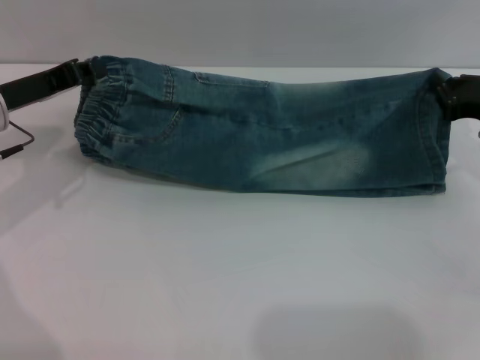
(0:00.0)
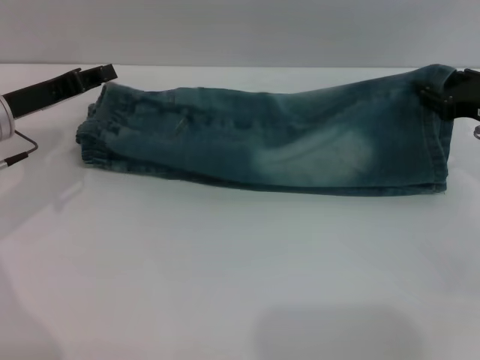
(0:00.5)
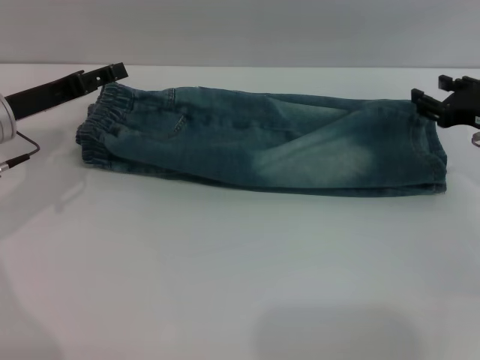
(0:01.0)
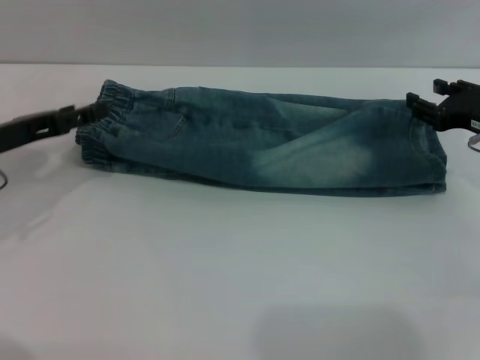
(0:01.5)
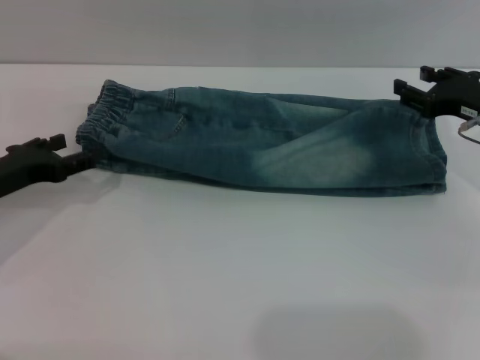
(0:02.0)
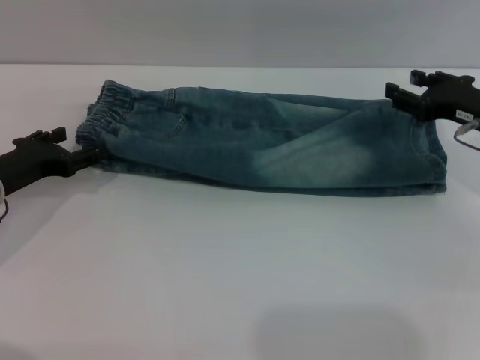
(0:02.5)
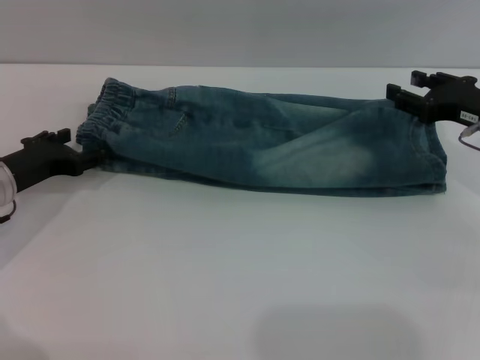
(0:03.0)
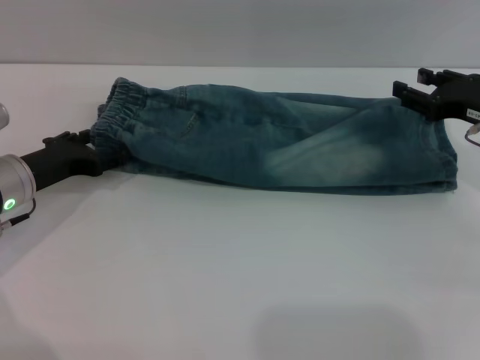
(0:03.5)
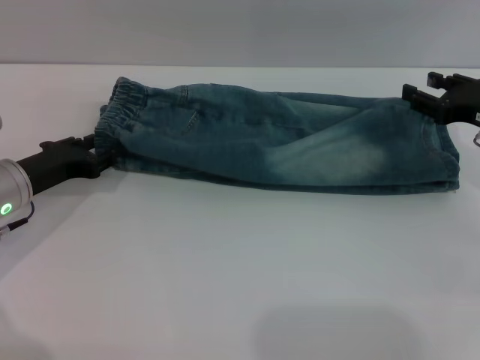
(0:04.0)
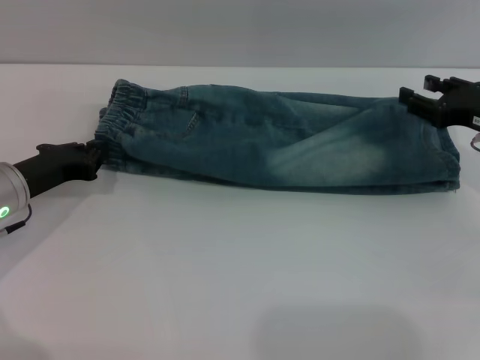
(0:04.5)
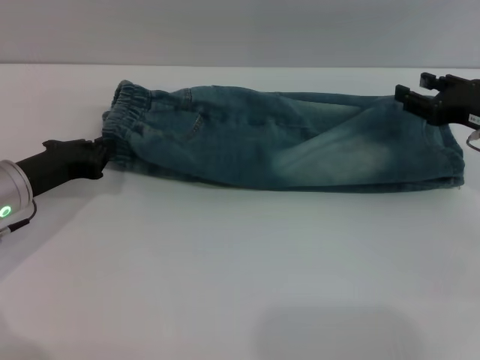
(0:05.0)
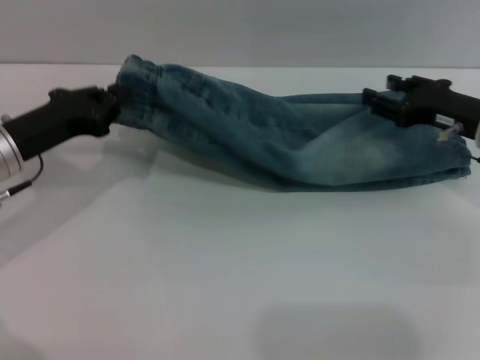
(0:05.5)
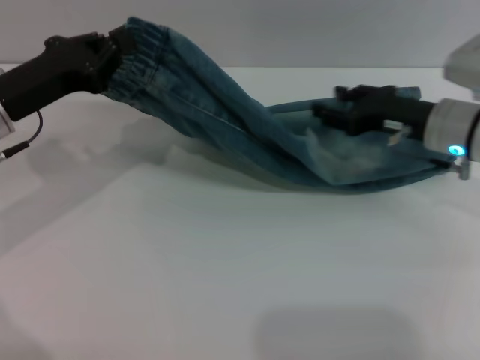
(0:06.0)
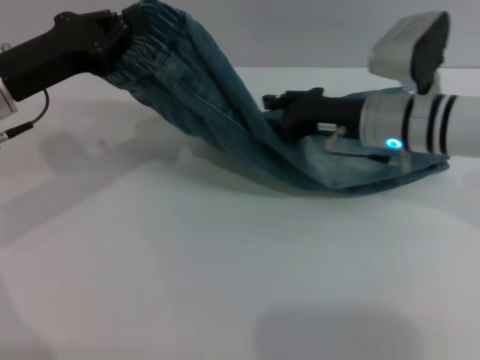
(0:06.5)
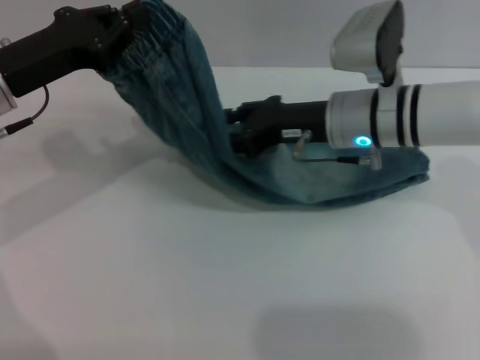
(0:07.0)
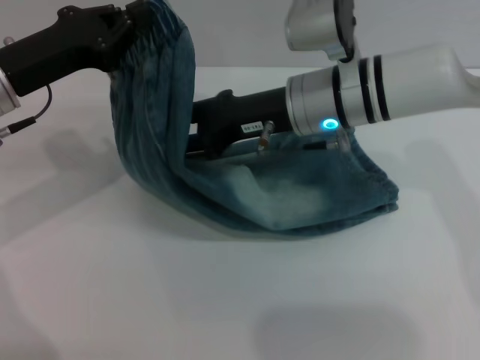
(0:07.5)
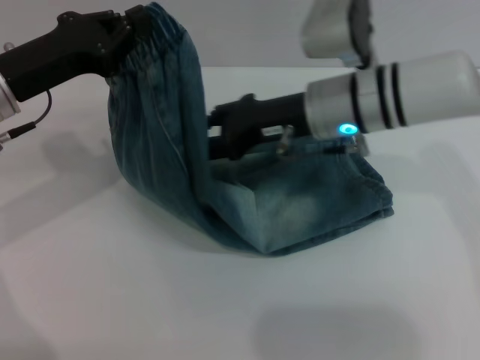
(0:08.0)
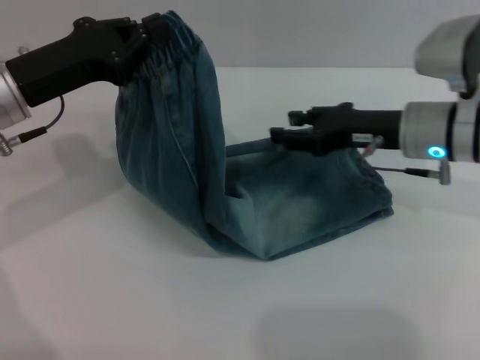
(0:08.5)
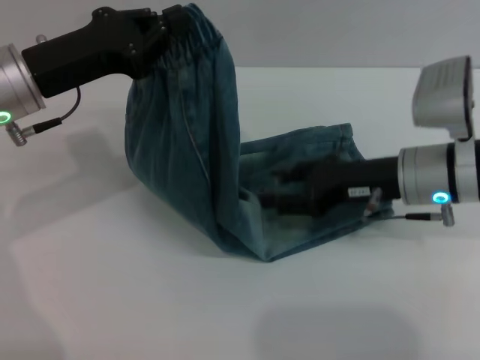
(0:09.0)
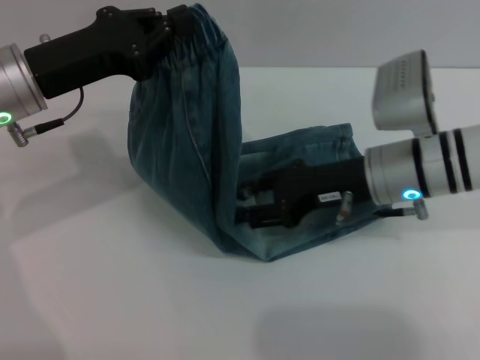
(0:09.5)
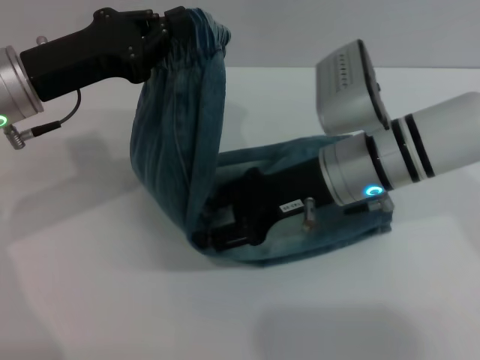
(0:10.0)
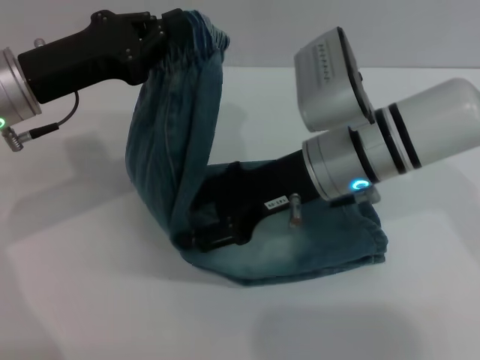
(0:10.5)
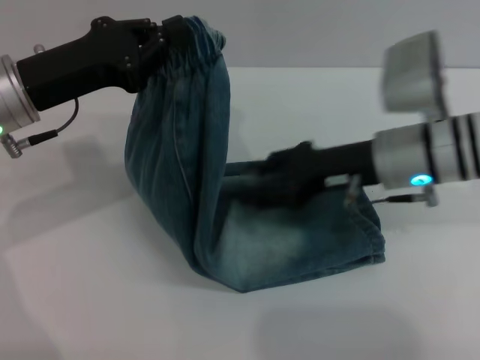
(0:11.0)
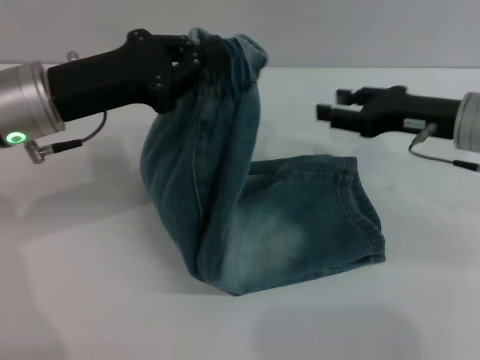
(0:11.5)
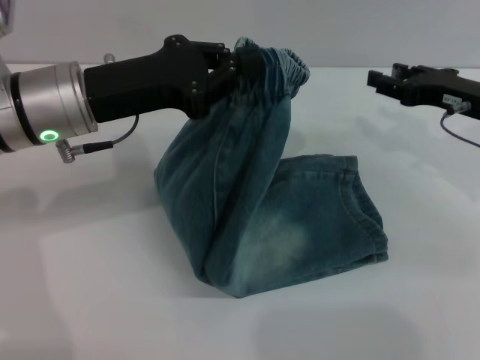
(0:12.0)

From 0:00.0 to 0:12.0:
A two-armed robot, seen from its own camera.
From 0:00.0 to 0:02.0: The left gripper shifts roughly 10 cm backward and downward, and opens its fingers. Meanwhile the right gripper opens.
From 0:02.0 to 0:04.0: The grippers make only small movements.
From 0:04.0 to 0:06.0: The right gripper shifts approximately 10 cm to the left. The left gripper heads upward, covering some 10 cm, and closes its fingers.
From 0:06.0 to 0:08.0: The right gripper travels to the left by roughly 10 cm.
From 0:08.0 to 0:10.0: The right gripper is displaced backward by roughly 5 cm, and goes to the right and returns, roughly 10 cm each way.
From 0:10.0 to 0:12.0: The right gripper is displaced to the right by about 15 cm.

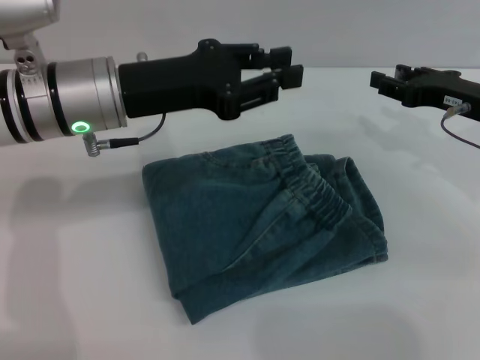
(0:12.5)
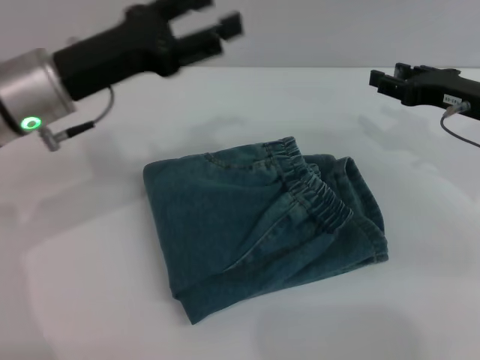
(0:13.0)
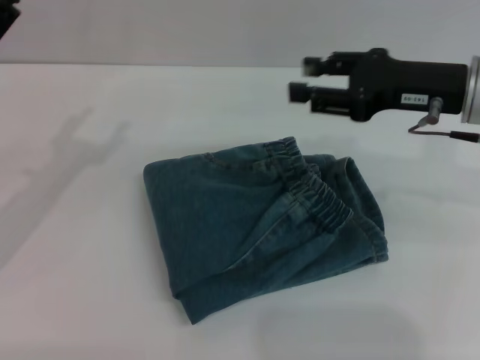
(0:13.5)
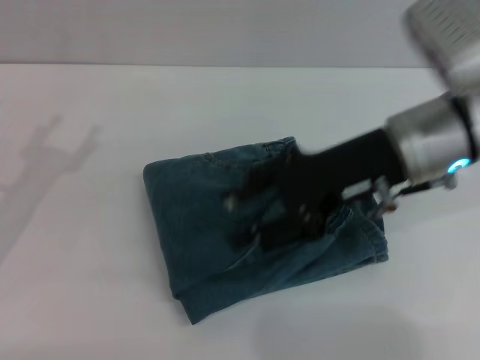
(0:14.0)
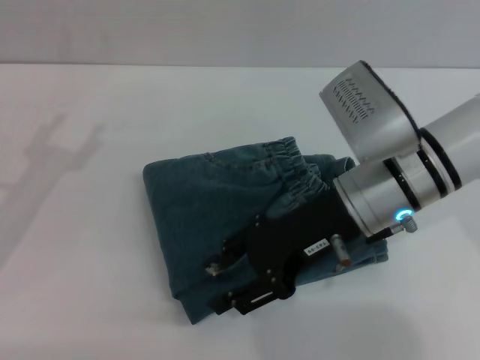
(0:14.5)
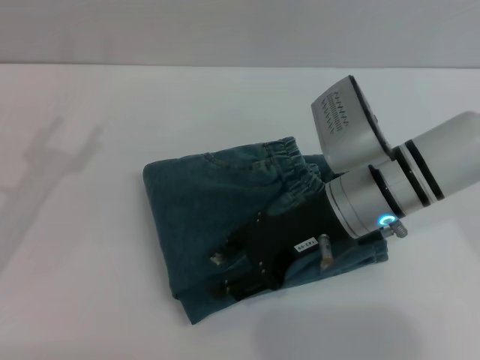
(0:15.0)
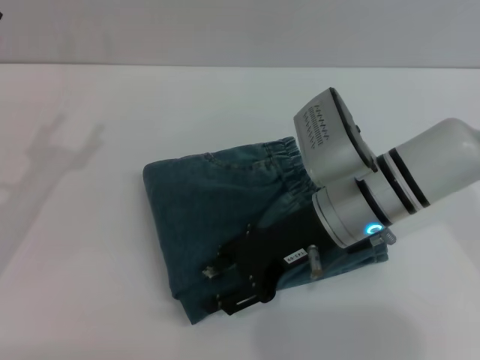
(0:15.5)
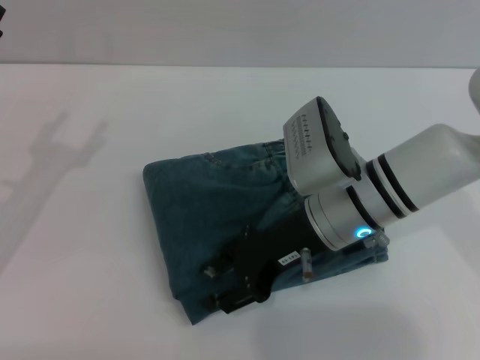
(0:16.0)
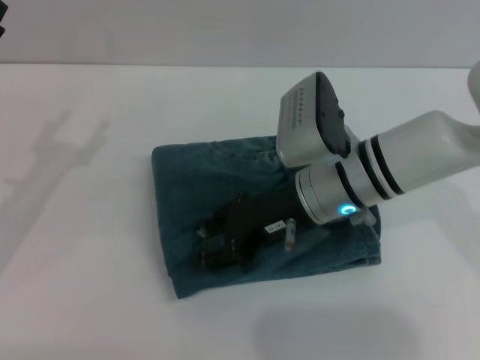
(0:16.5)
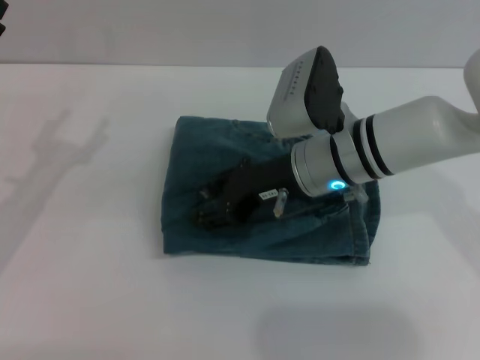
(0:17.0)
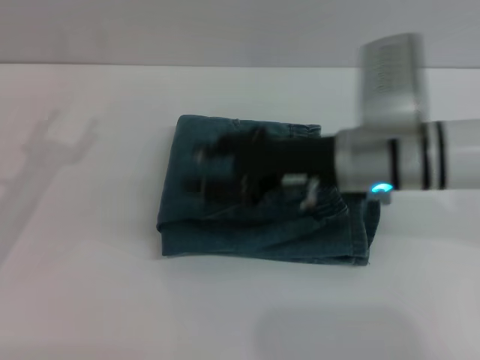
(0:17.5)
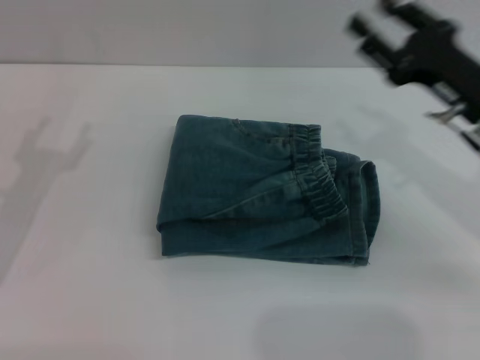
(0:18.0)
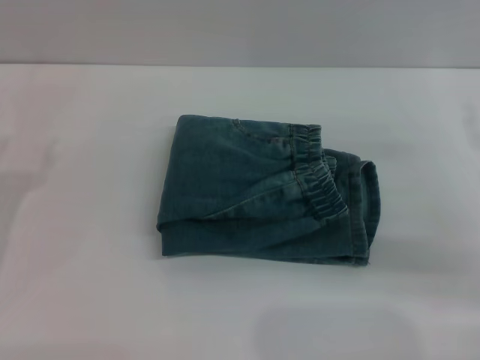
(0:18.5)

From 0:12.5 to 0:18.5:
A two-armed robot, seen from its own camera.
Step, from 0:13.0 to 0:17.0: Place the folded trousers onto the center area with the right grippers.
From 0:12.5 to 0:14.5: The right gripper shifts some 15 cm to the left, while the left gripper moves to the left, backward and downward, about 20 cm, and opens.
From 0:14.5 to 0:16.5: The grippers make only small movements.
From 0:16.5 to 0:18.5: The left gripper ends up some 5 cm from where it was. The right gripper is displaced to the right by roughly 20 cm.
